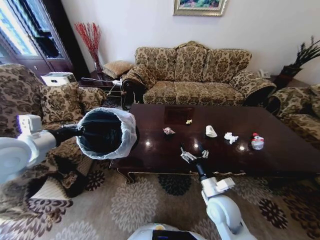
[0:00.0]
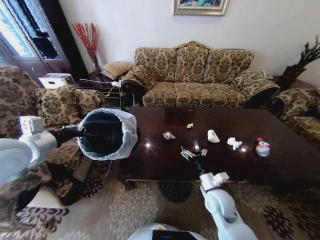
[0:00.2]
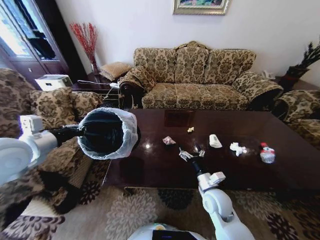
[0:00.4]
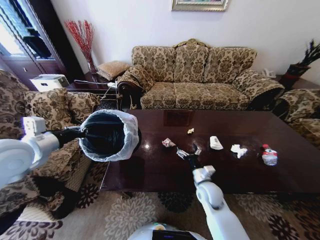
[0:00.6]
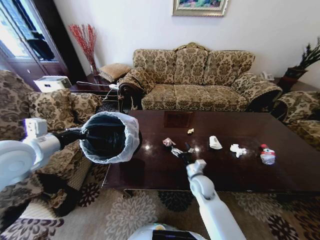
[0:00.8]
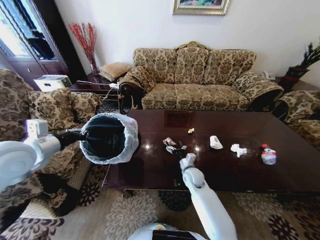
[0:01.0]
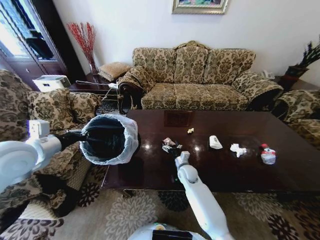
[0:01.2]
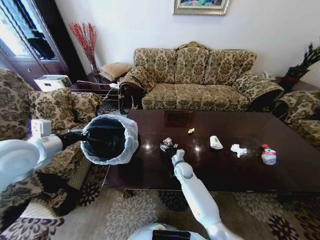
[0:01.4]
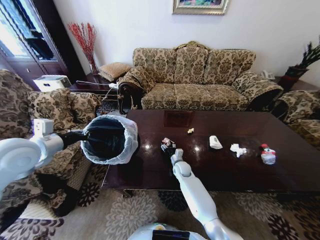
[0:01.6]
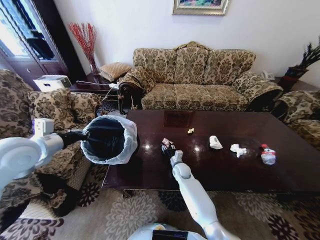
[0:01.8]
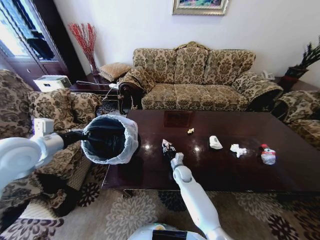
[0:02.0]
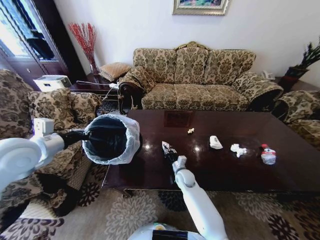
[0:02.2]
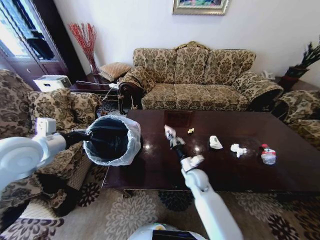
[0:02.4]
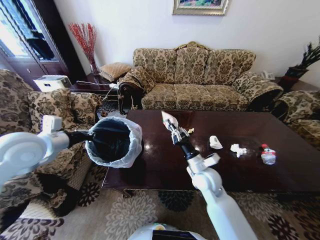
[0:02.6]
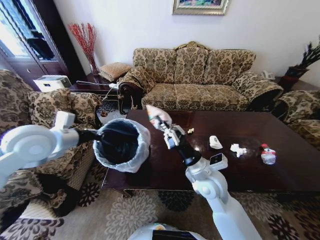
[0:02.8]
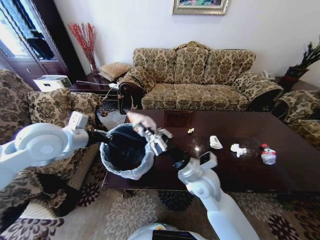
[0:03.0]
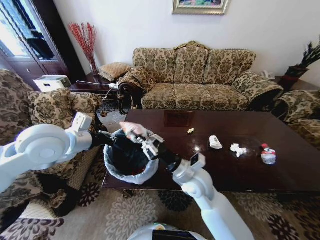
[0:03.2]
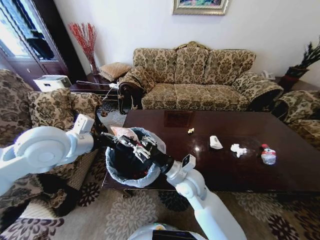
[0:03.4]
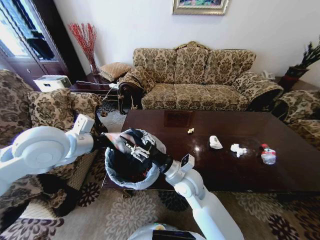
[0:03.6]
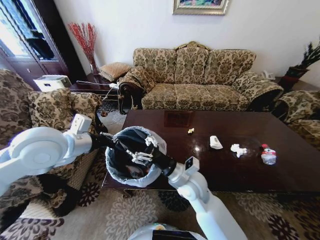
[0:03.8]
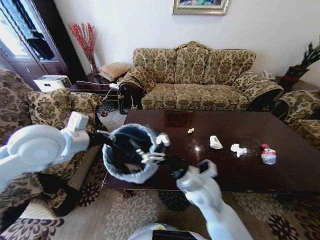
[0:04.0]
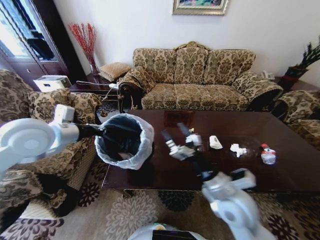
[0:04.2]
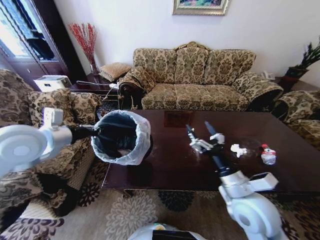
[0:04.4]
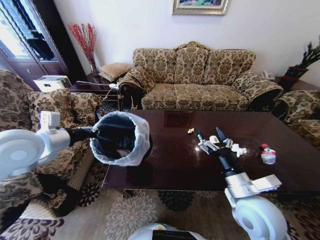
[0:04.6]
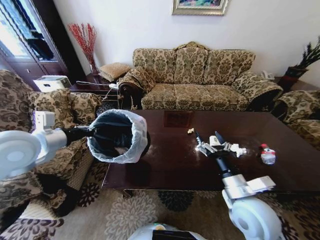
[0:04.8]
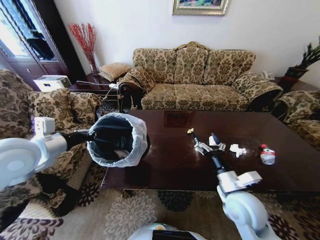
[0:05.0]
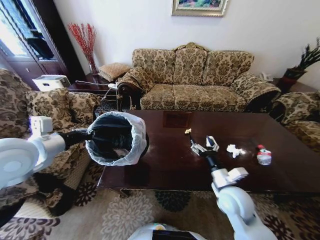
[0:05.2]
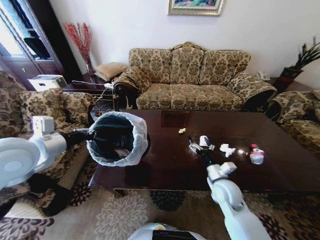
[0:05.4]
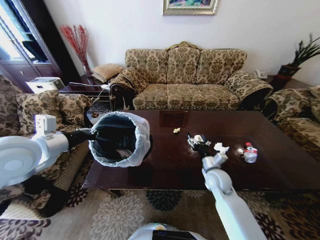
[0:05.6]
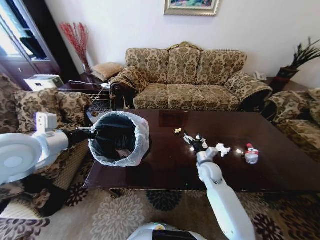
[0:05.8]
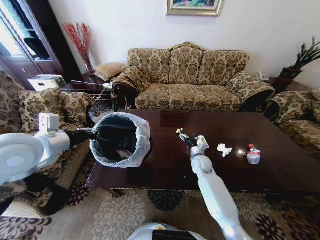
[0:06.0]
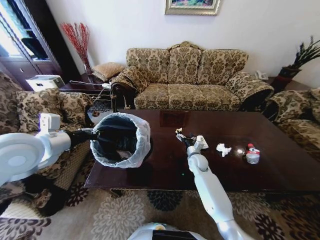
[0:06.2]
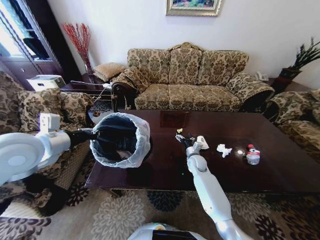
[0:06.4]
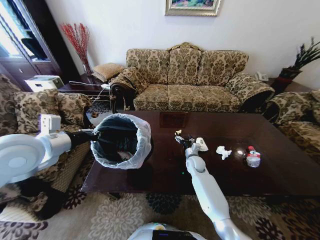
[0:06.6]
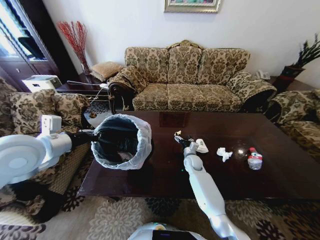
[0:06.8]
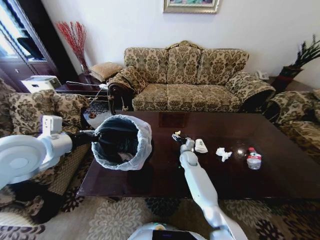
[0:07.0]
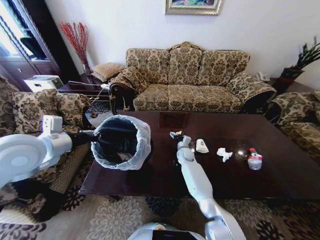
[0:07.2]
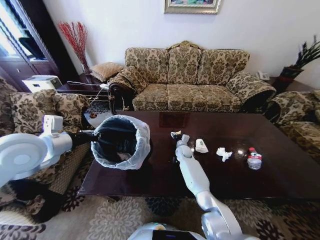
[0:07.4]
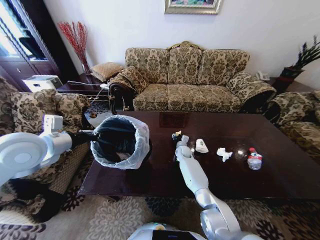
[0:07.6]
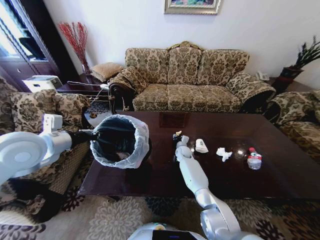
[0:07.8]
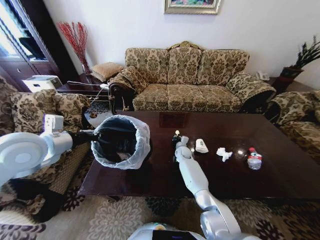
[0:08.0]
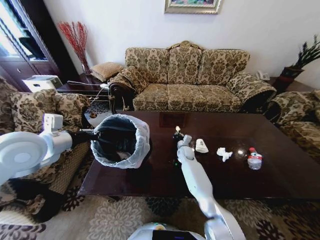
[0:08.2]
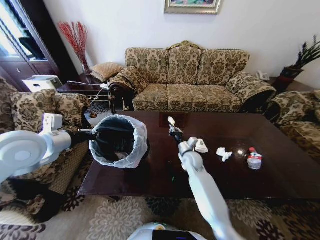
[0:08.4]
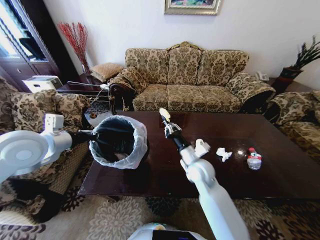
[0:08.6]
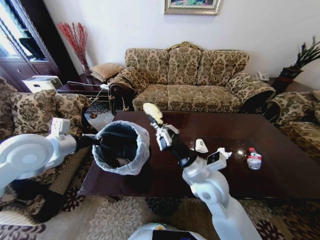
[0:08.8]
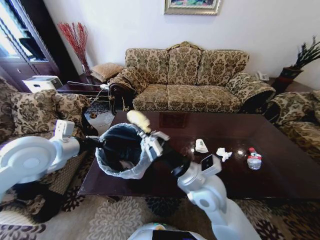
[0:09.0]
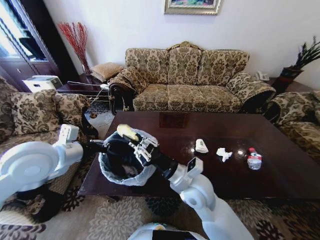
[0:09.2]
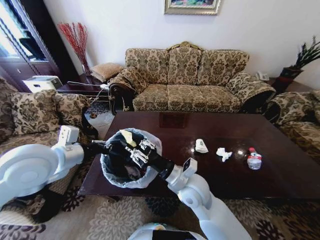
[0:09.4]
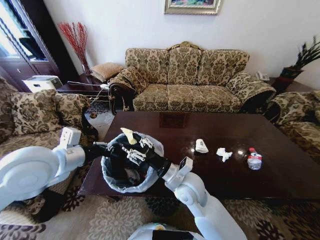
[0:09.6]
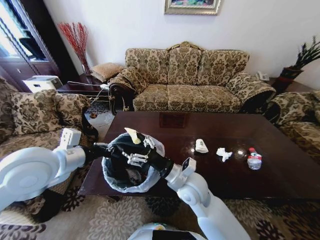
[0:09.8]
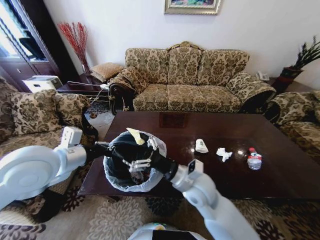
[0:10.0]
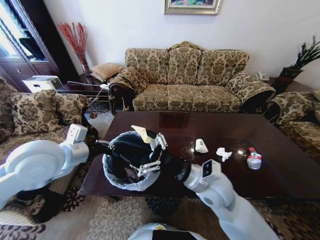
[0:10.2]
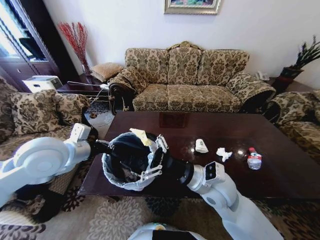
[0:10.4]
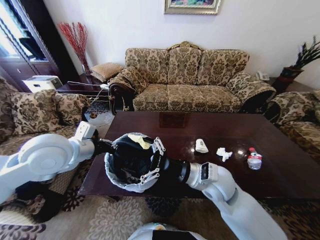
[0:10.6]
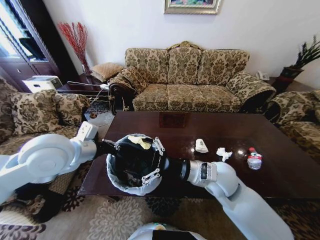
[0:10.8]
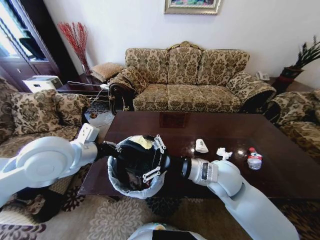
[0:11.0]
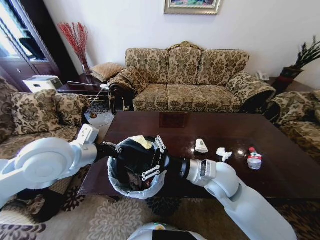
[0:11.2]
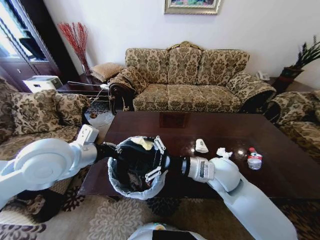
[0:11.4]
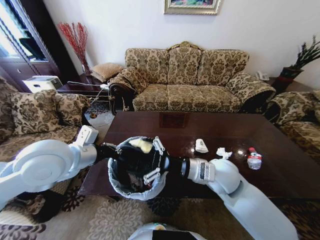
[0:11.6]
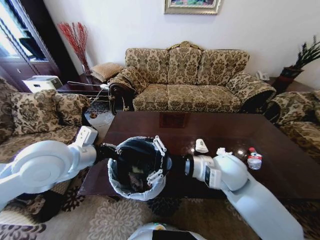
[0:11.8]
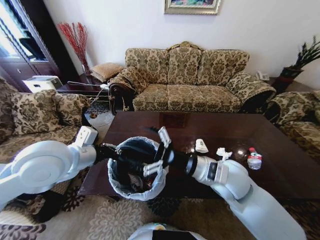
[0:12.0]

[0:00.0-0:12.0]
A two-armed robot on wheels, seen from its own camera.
Task of the whole recording: Move to the front of the table and place the trash on the table into the trash bin.
0:00.0 to 0:01.6: The right gripper travels forward, downward and to the left by approximately 25 cm.
0:01.6 to 0:03.0: The left gripper travels to the right by some 10 cm. The right gripper shifts some 25 cm upward and backward, and closes its fingers.
0:03.0 to 0:04.4: The right gripper goes roughly 15 cm to the right and backward, and opens.
0:04.4 to 0:06.0: The right gripper moves forward and downward, approximately 30 cm.
0:06.0 to 0:07.6: The right gripper shifts some 15 cm forward, to the left and downward, and closes up.
0:07.6 to 0:09.0: The right gripper goes roughly 40 cm backward and upward, and closes.
0:09.0 to 0:10.4: The right gripper opens up.

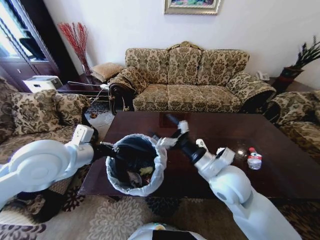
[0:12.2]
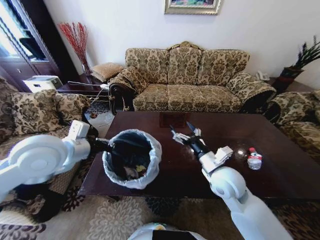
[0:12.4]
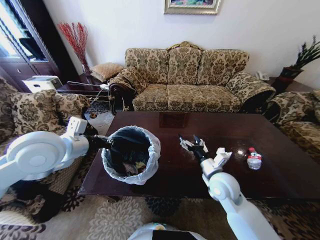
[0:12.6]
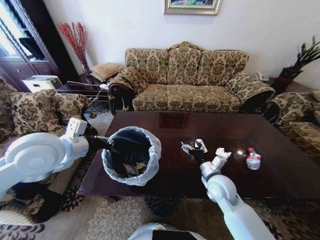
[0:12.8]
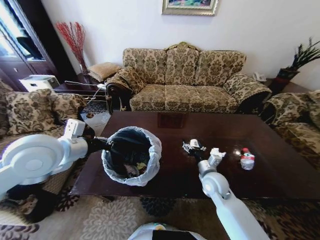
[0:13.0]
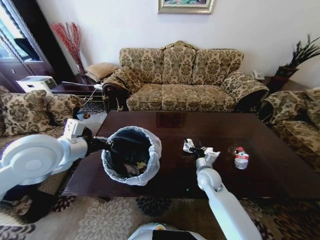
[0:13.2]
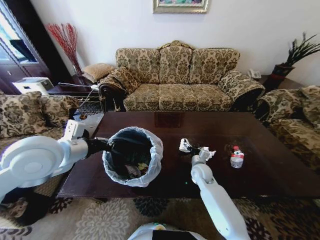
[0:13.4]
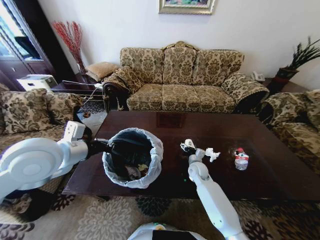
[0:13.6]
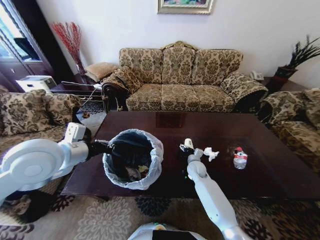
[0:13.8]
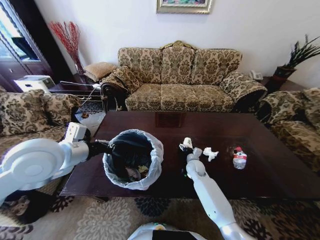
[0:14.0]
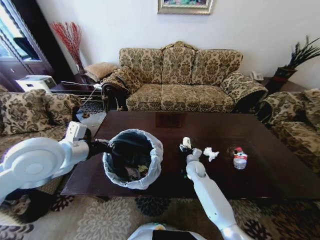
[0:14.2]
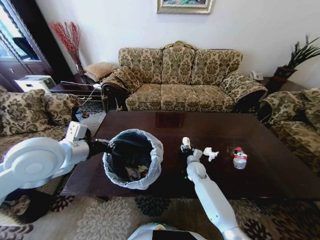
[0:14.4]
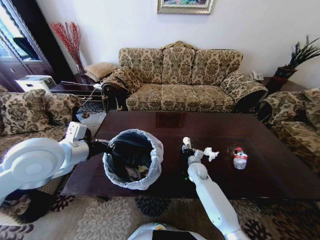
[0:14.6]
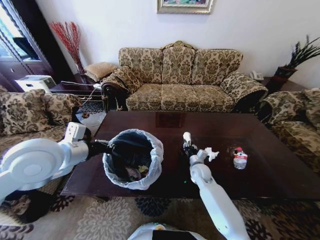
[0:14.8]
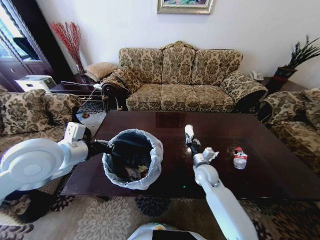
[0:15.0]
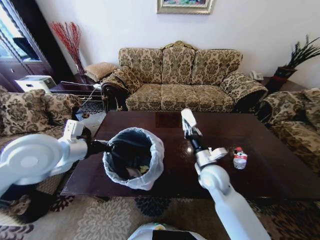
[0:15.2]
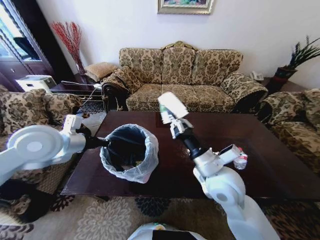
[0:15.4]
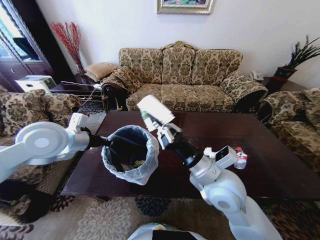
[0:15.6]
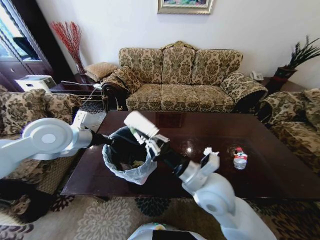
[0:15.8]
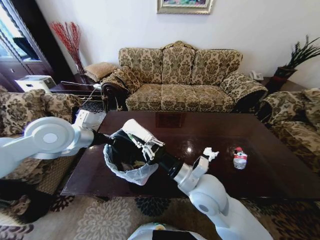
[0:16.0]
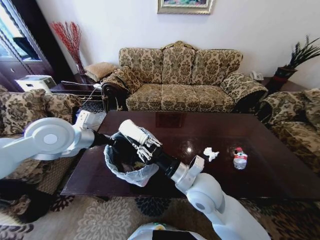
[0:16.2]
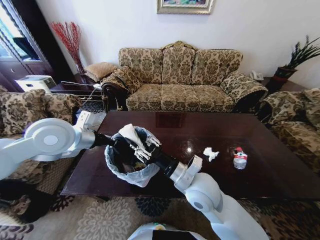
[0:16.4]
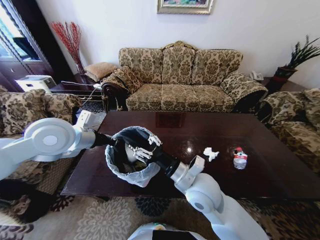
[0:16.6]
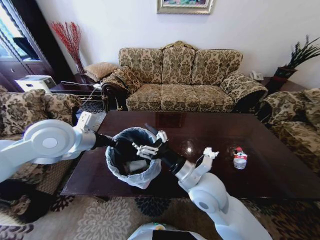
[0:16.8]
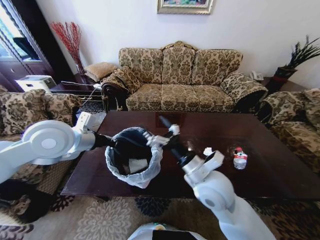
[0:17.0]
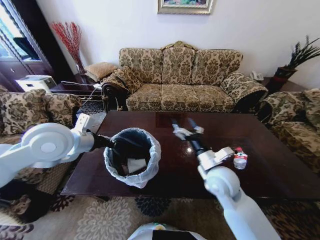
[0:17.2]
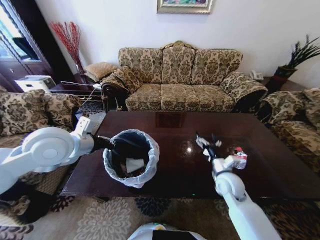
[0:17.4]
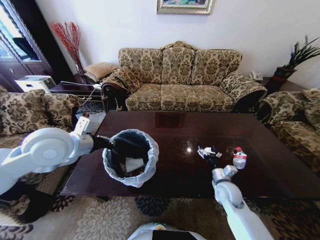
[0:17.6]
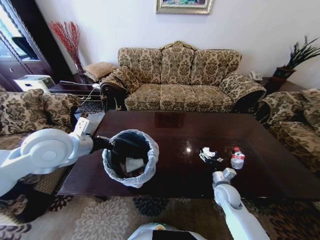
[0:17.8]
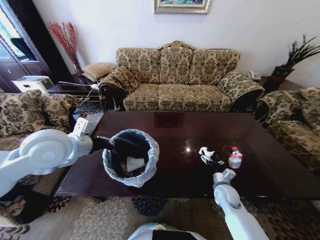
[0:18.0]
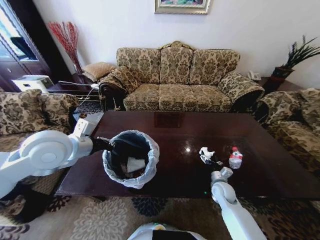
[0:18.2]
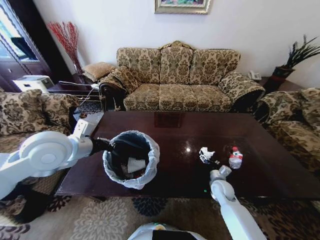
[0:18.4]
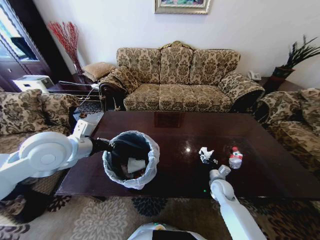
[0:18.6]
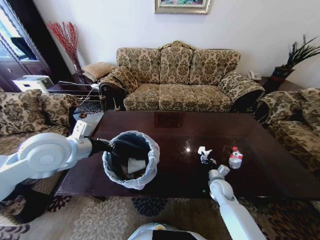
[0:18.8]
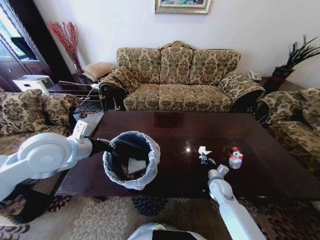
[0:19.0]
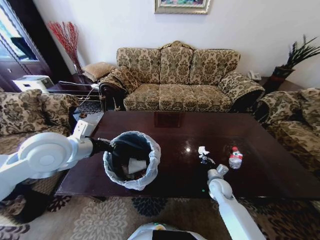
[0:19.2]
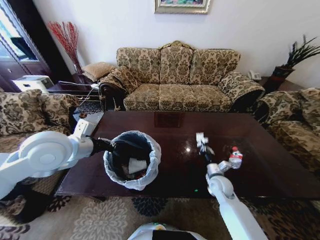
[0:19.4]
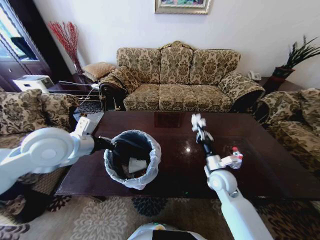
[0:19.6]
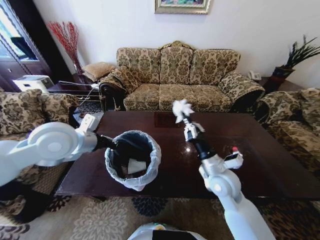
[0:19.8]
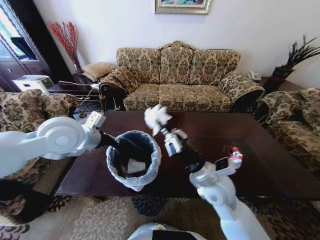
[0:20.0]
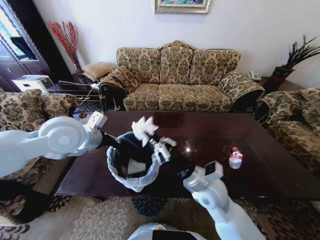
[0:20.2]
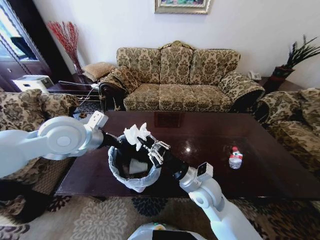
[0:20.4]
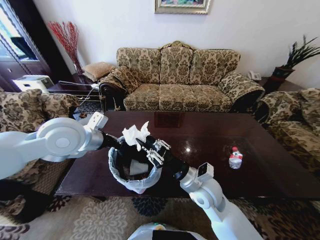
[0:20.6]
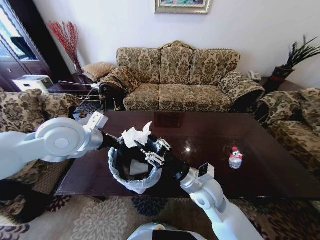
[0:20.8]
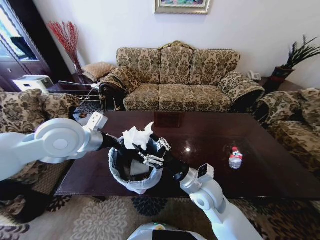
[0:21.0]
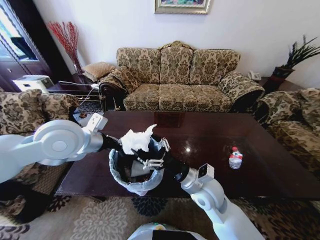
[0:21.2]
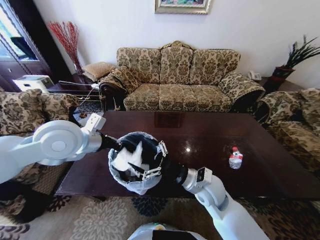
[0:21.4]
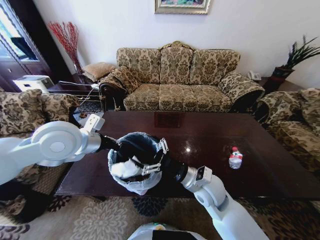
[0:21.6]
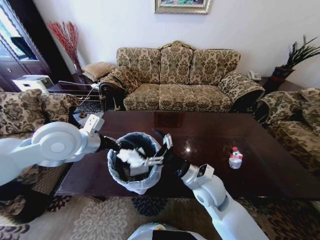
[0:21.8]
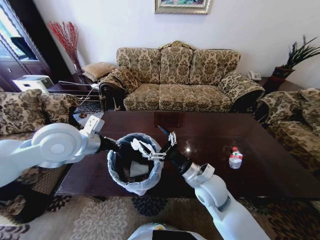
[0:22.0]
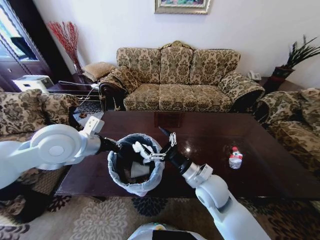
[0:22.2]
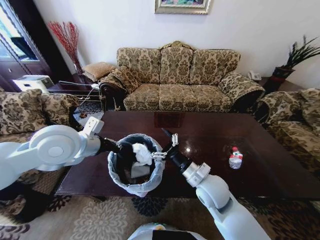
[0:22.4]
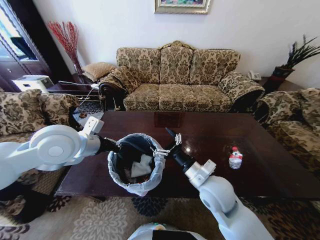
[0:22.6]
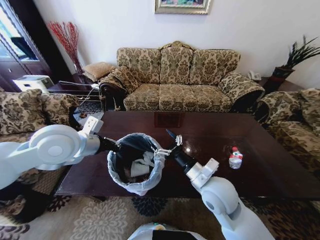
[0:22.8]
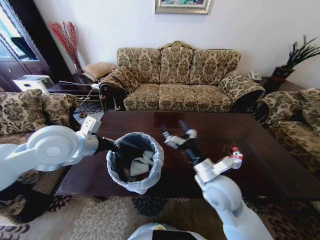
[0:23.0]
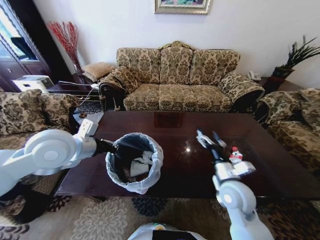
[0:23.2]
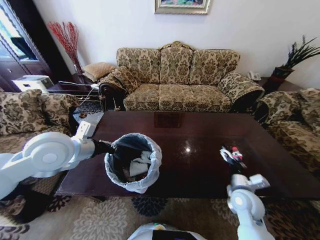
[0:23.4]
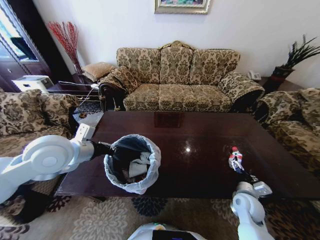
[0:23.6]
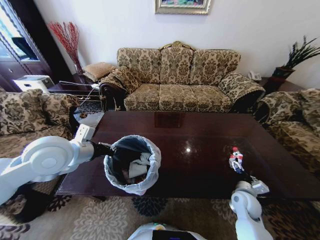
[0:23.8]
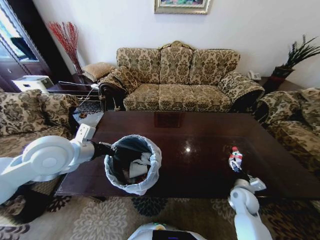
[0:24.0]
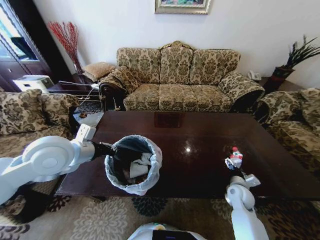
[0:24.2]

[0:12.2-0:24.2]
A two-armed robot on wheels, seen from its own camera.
Task of the whole recording: Move to the front of the table and place the trash on the table into the trash bin.
0:12.2 to 0:13.8: The right gripper moves downward and forward, approximately 30 cm.
0:13.8 to 0:15.2: The right gripper goes about 20 cm upward and backward, and closes up.
0:15.2 to 0:16.6: The right gripper moves to the left and backward, some 10 cm, and opens up.
0:16.6 to 0:18.2: The right gripper travels downward and to the right by about 30 cm, and opens its fingers.
0:18.2 to 0:19.8: The right gripper is displaced upward and to the left by roughly 20 cm, and closes.
0:19.8 to 0:21.2: The right gripper goes approximately 5 cm to the left, and opens its fingers.
0:22.6 to 0:24.2: The right gripper is displaced to the right and downward by some 30 cm.
